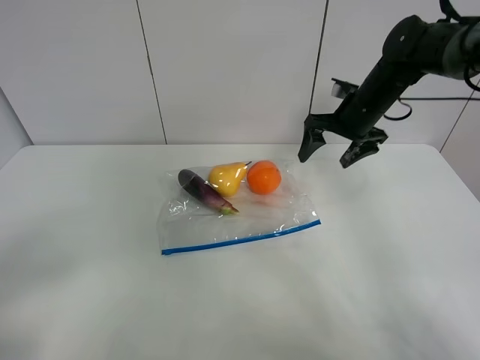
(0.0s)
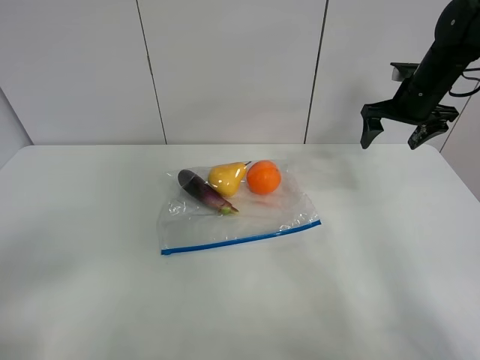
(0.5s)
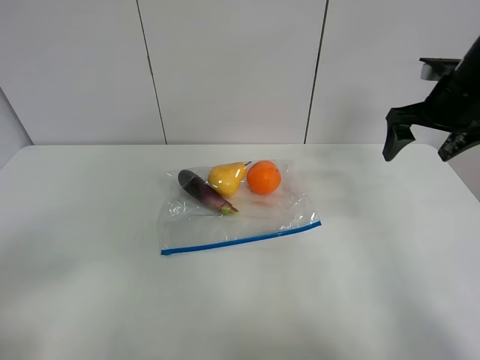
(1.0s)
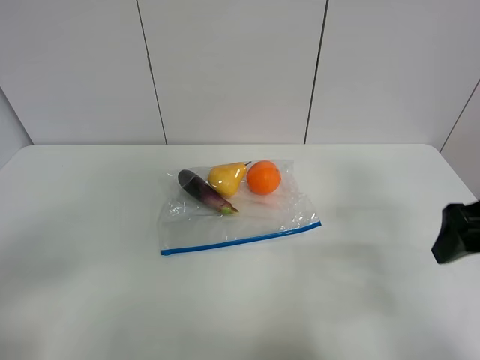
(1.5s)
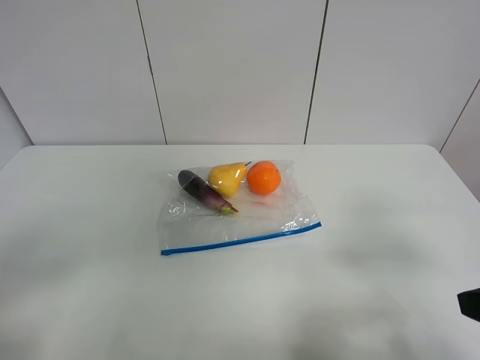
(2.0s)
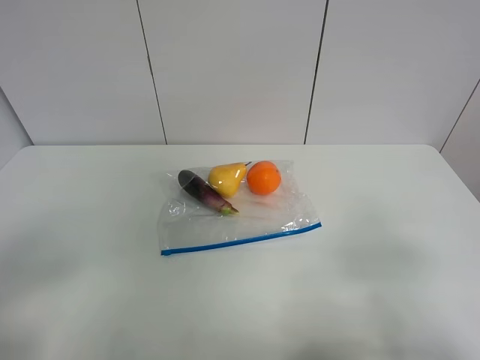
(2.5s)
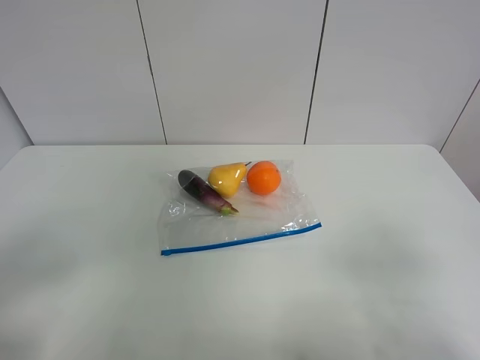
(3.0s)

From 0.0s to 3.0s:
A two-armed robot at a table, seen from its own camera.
From 0.0s to 1.5s: The right gripper moves backward, about 25 cm.
From 1.5s to 3.0s: The right gripper moves backward, approximately 15 cm.
